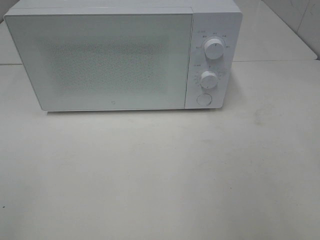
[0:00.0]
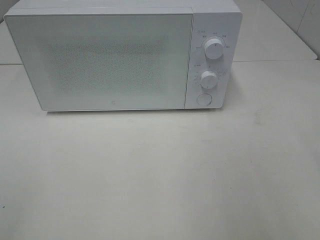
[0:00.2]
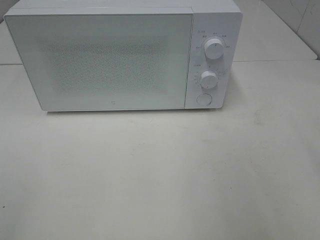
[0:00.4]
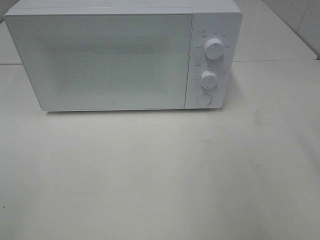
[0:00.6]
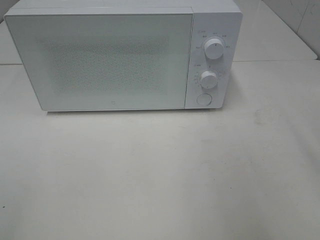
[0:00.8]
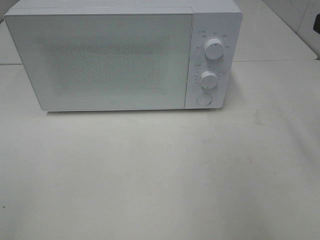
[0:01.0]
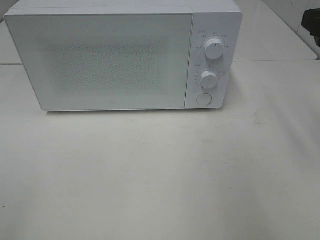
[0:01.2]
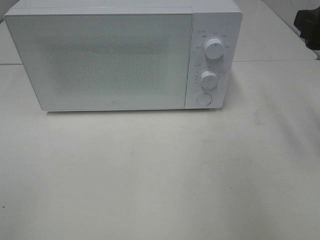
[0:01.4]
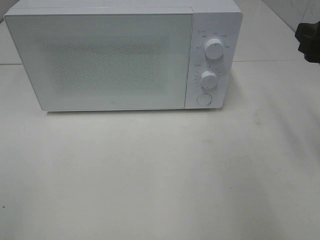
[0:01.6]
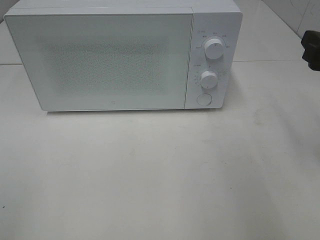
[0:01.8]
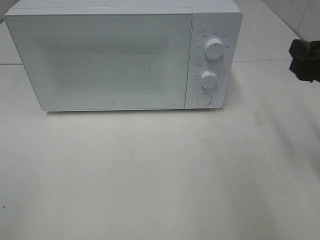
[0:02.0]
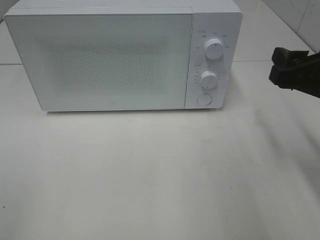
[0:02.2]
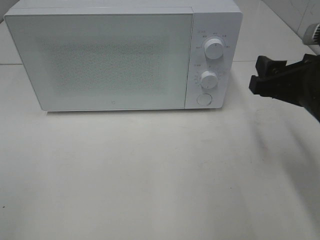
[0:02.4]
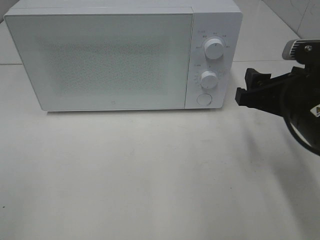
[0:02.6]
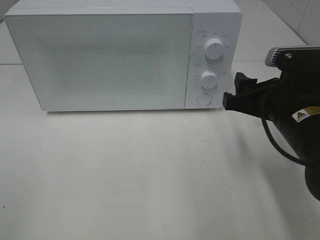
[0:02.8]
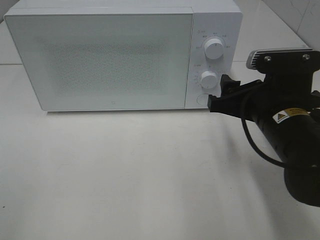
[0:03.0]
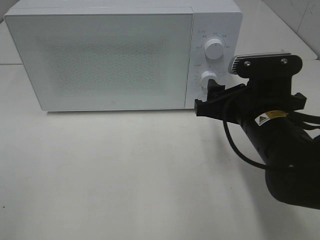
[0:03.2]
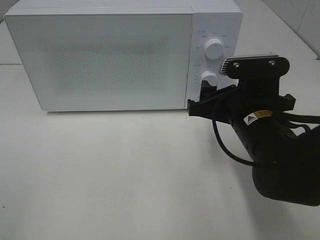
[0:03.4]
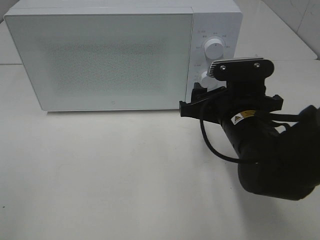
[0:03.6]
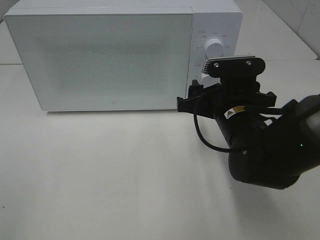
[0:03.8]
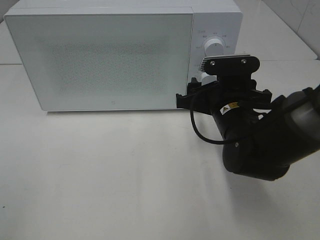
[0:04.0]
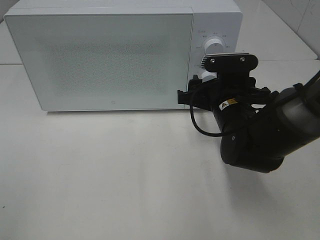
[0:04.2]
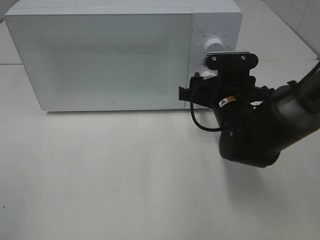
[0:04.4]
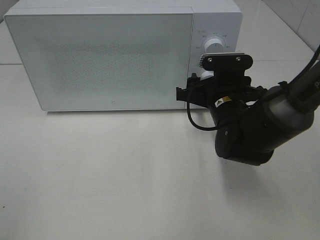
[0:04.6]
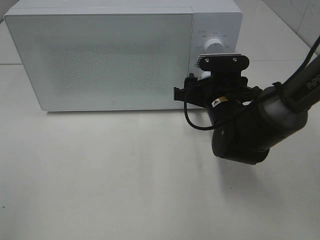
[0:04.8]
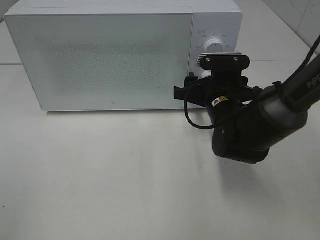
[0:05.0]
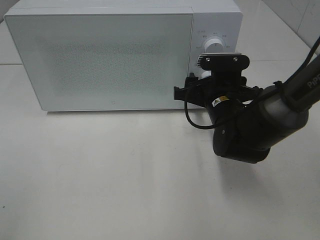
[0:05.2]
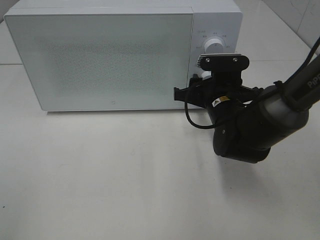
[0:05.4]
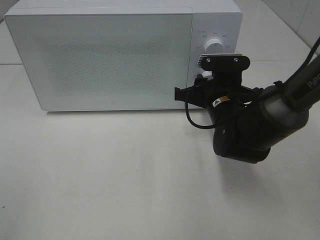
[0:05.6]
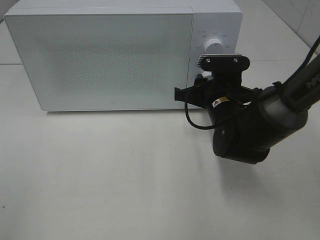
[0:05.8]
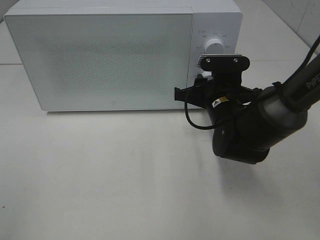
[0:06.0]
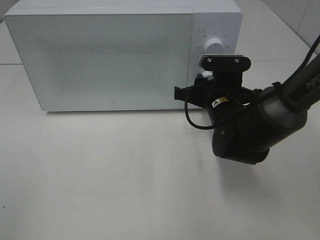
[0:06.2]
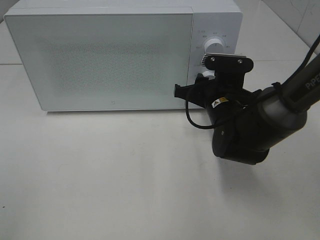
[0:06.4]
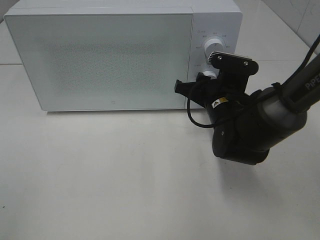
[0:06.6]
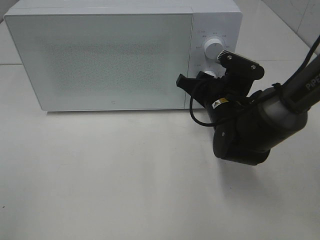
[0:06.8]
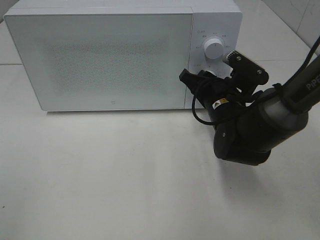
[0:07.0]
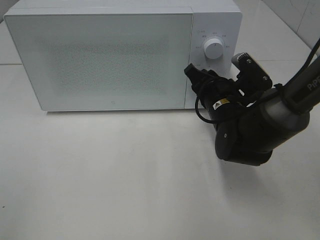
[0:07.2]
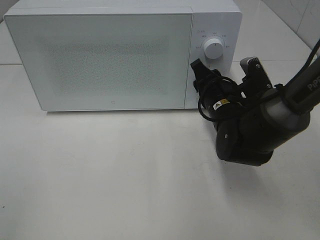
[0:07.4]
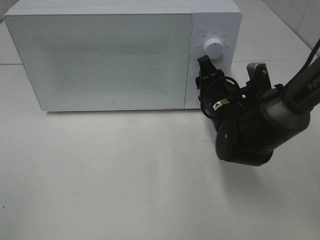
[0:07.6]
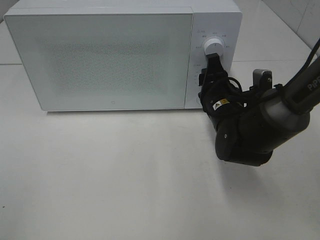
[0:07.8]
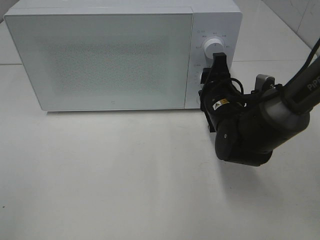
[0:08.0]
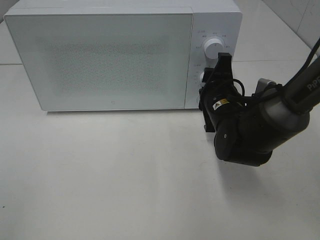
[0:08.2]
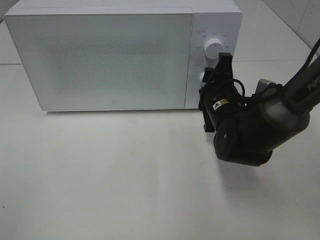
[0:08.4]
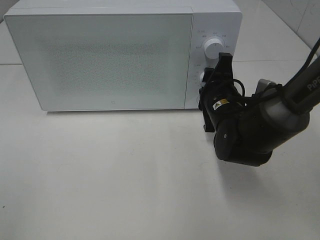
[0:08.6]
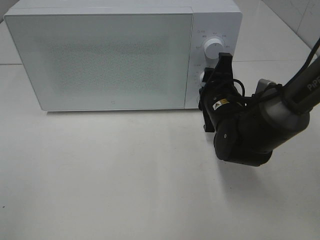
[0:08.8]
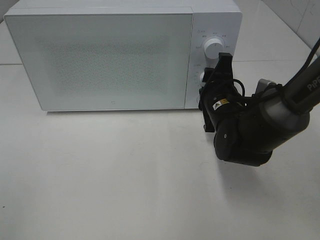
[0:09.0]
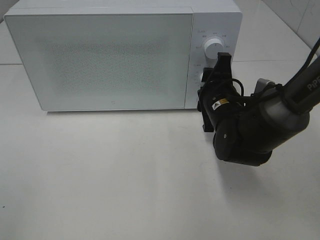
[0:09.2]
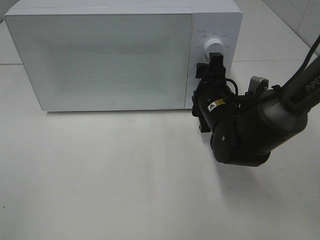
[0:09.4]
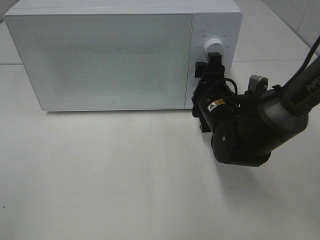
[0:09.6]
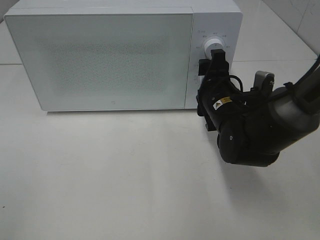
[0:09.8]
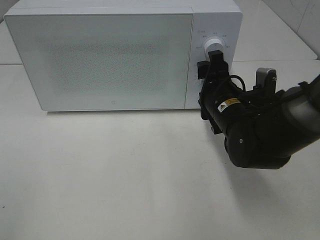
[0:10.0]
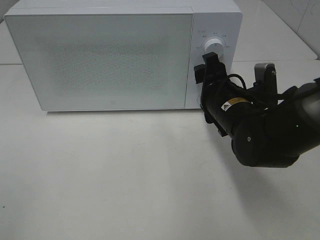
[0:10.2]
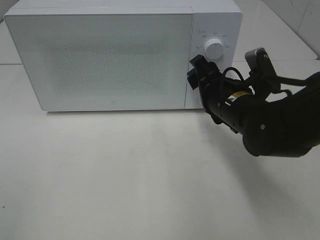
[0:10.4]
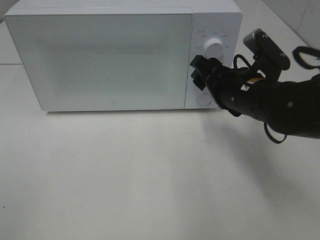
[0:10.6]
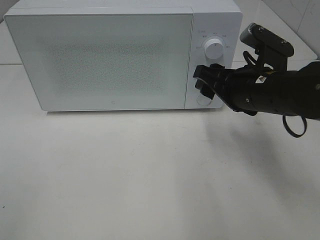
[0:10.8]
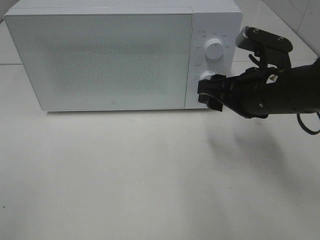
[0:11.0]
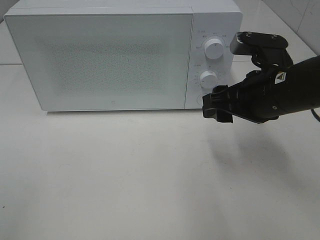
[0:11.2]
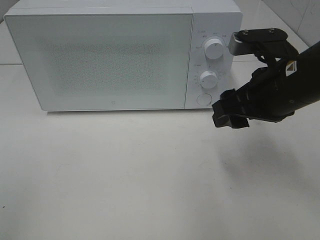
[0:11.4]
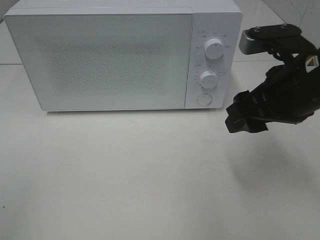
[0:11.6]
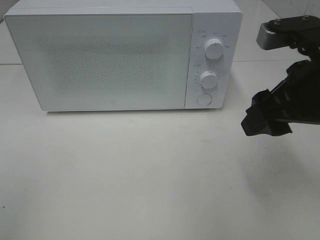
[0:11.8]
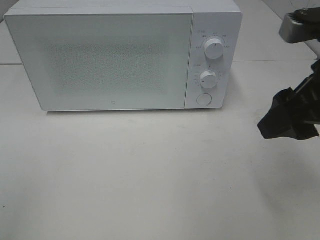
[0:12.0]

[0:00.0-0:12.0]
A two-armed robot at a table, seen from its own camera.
Task of the whole recording: Heat the burger.
Step, 0:00.0 to 0:09.8: Right hand: twist timer button.
0:00.0 to 0:01.6: The right gripper is displaced forward and downward by approximately 15 cm.
0:01.6 to 0:03.0: The right gripper heads to the left and downward, covering roughly 15 cm.
0:03.0 to 0:04.4: The right gripper heads forward and downward, covering approximately 10 cm.
0:04.4 to 0:06.0: The right gripper closes up.
0:10.4 to 0:12.0: The right gripper moves upward, backward and to the right, roughly 20 cm.

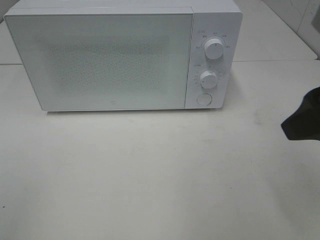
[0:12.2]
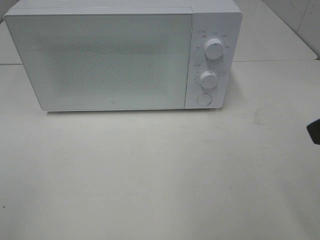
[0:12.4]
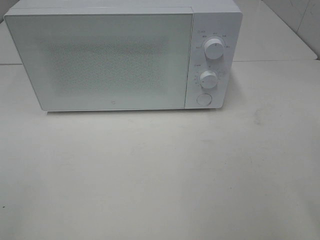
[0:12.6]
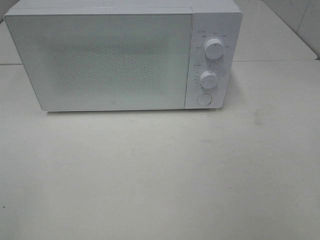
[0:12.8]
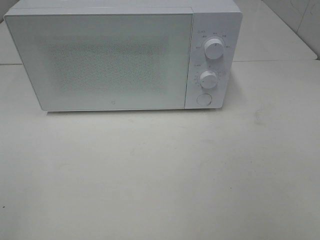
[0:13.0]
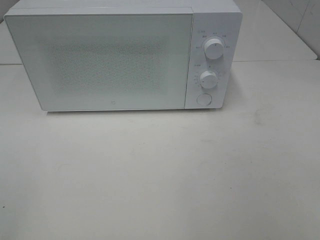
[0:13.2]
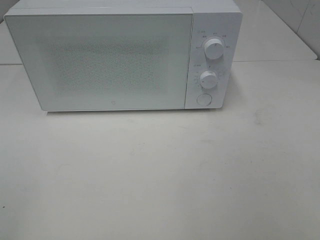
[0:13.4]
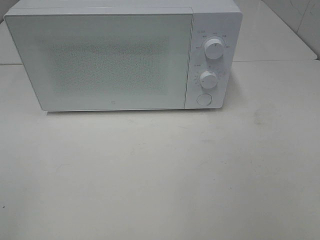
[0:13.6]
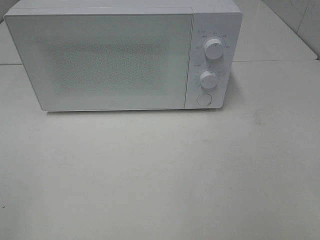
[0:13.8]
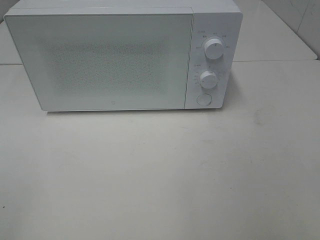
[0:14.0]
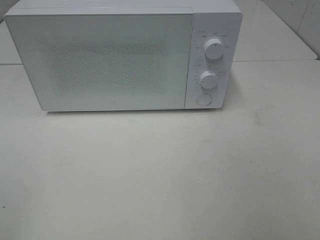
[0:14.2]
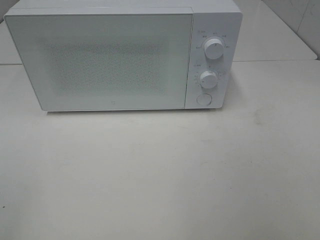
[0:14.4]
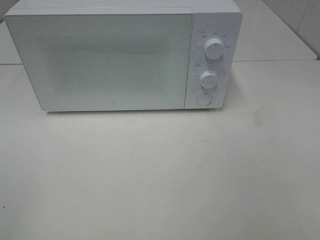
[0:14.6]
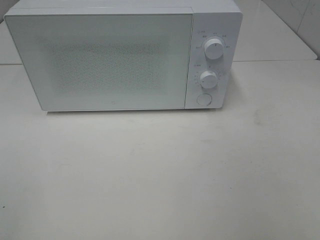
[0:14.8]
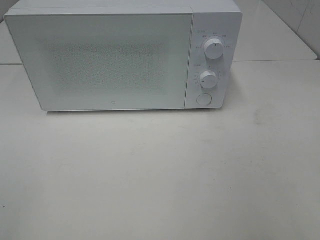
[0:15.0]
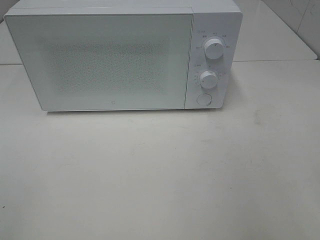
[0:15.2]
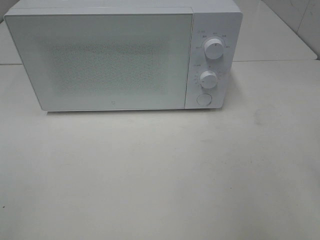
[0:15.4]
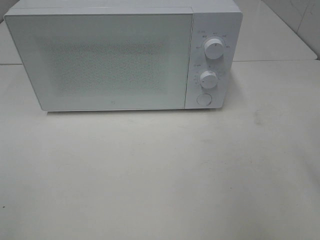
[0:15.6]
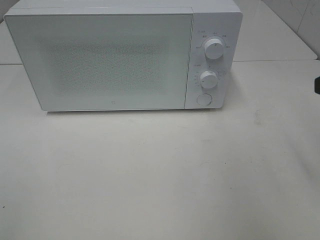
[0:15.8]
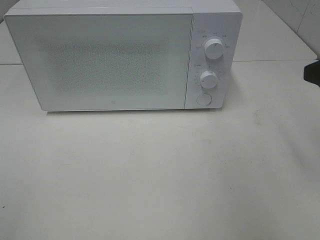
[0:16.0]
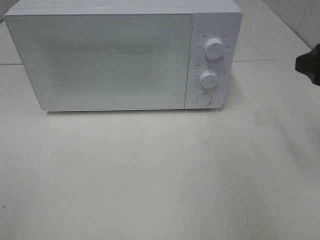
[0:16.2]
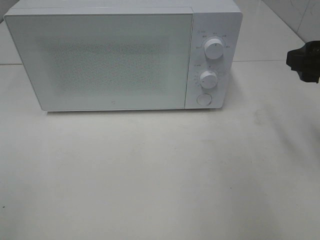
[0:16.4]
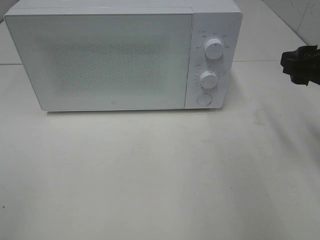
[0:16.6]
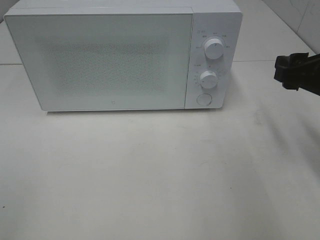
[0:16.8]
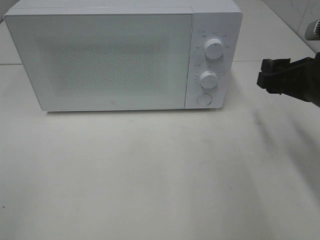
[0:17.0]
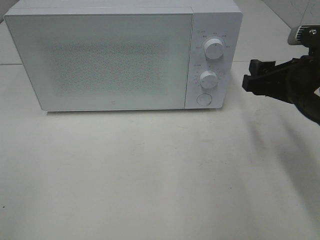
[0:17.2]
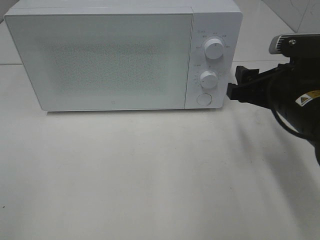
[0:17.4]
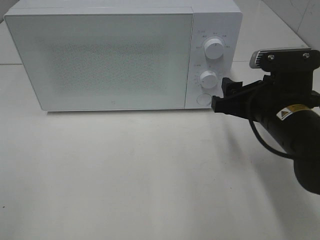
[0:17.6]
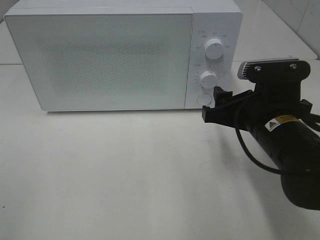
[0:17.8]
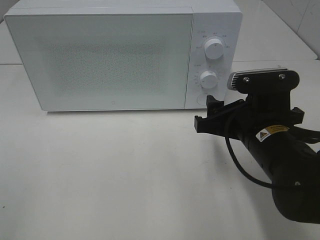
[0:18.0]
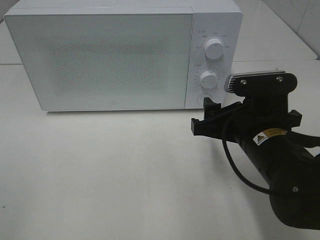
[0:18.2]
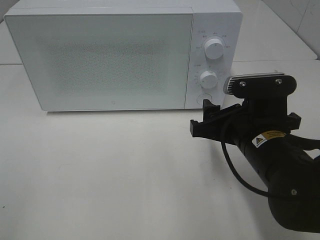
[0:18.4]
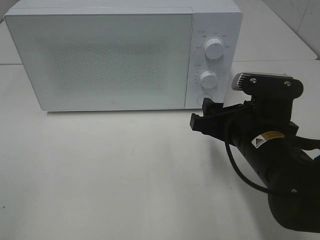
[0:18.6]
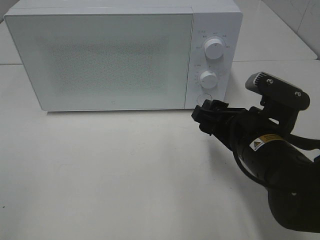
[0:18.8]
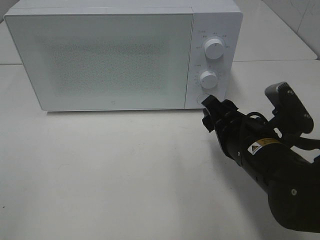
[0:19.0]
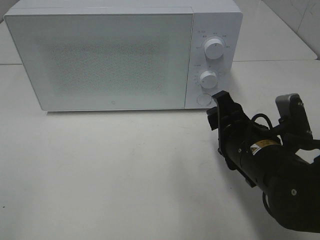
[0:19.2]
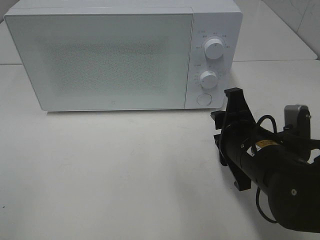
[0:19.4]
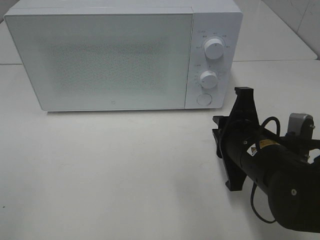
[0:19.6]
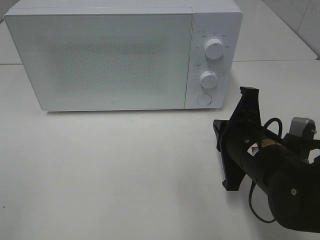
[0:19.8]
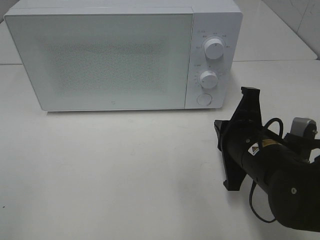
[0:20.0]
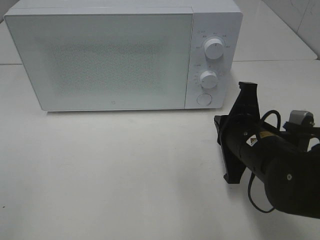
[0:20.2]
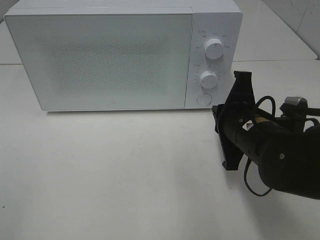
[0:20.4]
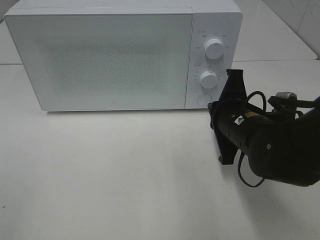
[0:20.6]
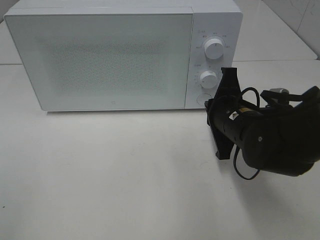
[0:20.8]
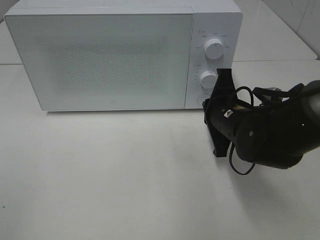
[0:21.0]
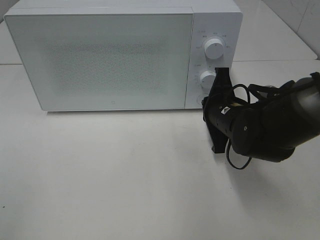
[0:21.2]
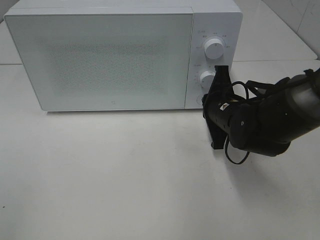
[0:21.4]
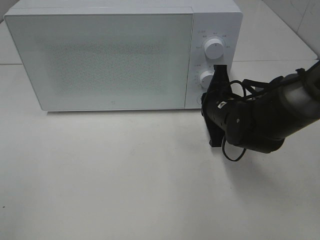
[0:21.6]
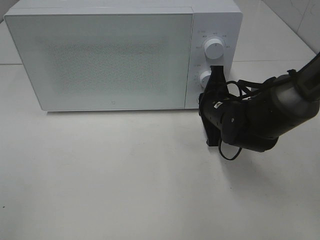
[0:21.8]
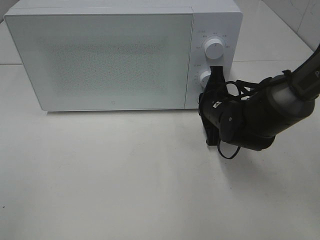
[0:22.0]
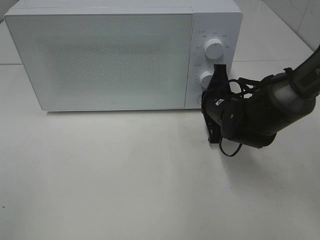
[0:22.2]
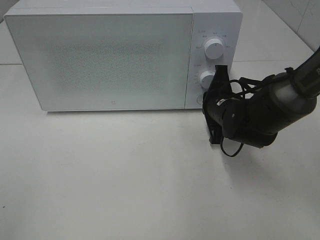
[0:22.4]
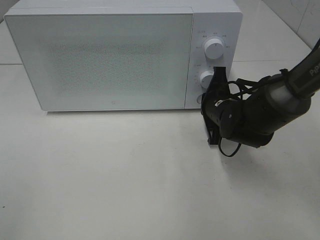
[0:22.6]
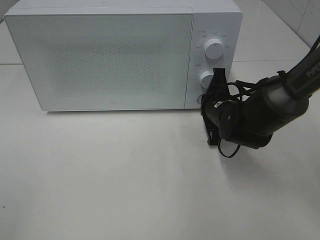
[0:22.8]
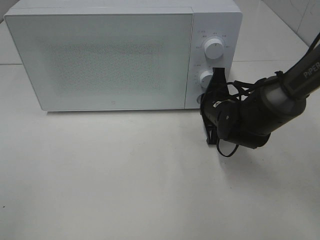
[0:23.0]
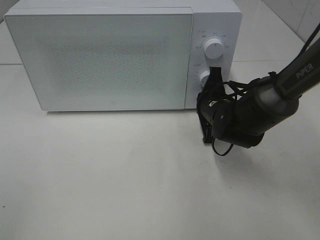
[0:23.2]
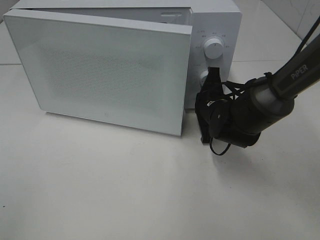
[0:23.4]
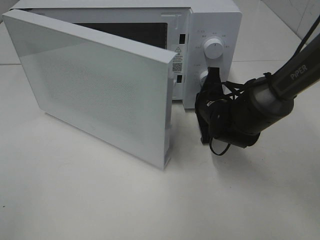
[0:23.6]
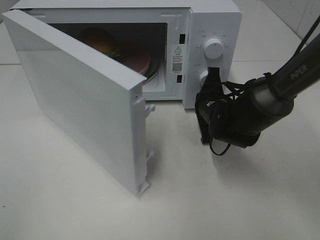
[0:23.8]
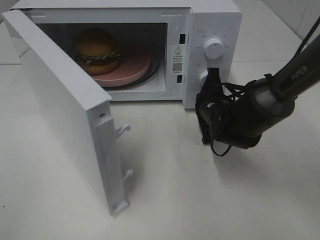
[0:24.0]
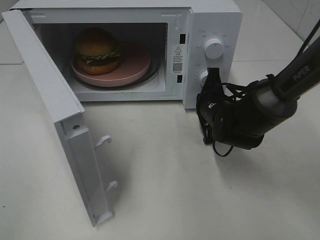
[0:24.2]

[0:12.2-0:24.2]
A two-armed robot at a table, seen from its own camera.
Task of the whole recording: Heat the burger.
0:12.2 to 0:13.8: The right gripper travels backward and to the right by some 15 cm.
0:15.2 to 0:16.6: The right gripper is displaced forward and downward by about 15 cm.
0:16.6 to 0:18.2: The right gripper heads to the left and downward, covering approximately 15 cm.
0:18.2 to 0:19.8: The right gripper closes up.
0:19.8 to 0:21.2: The right gripper shifts roughly 10 cm forward.
0:21.2 to 0:22.6: The grippers move only a little.
